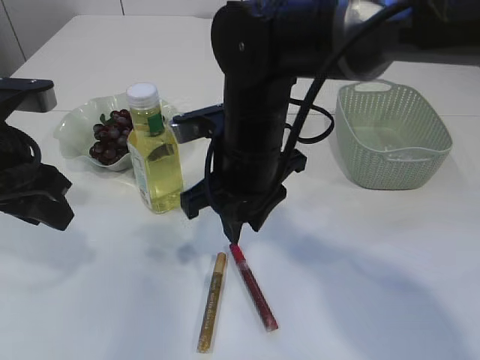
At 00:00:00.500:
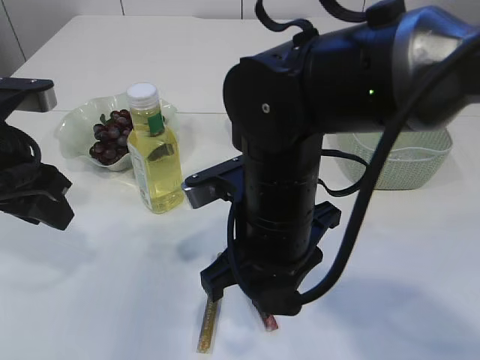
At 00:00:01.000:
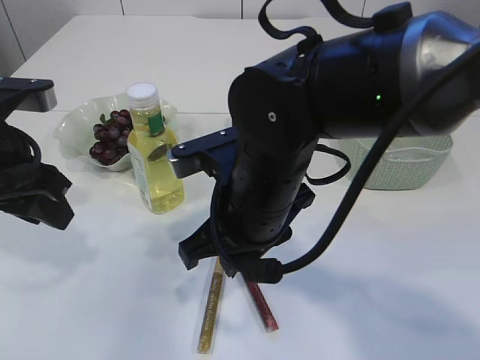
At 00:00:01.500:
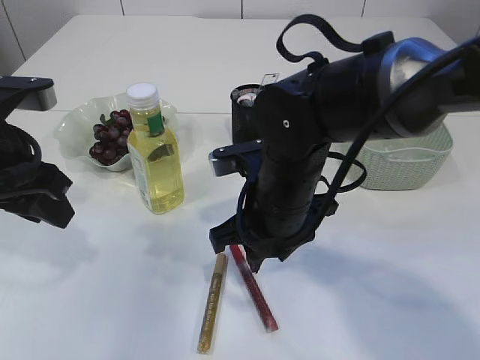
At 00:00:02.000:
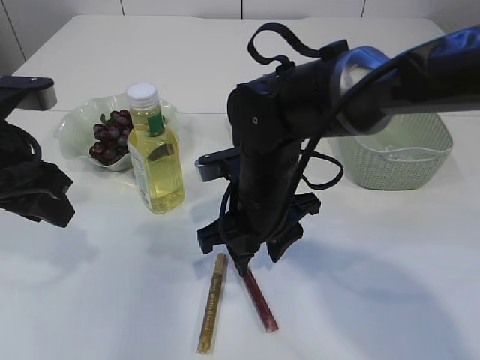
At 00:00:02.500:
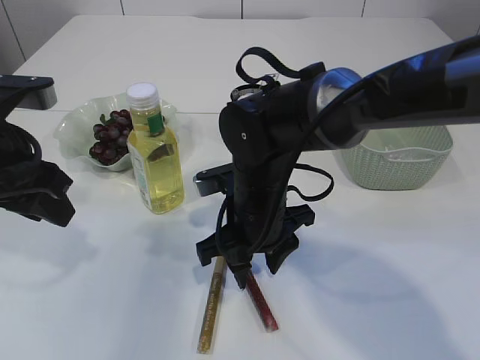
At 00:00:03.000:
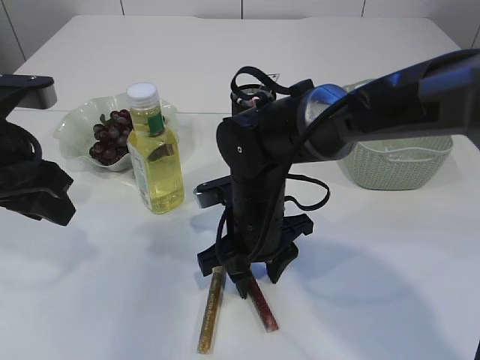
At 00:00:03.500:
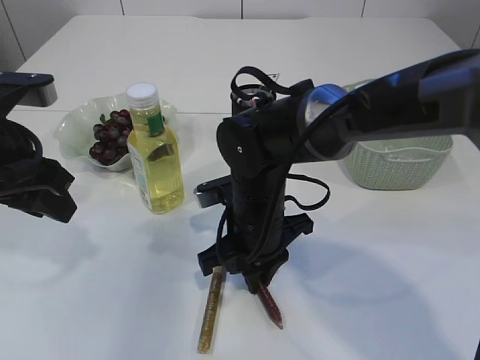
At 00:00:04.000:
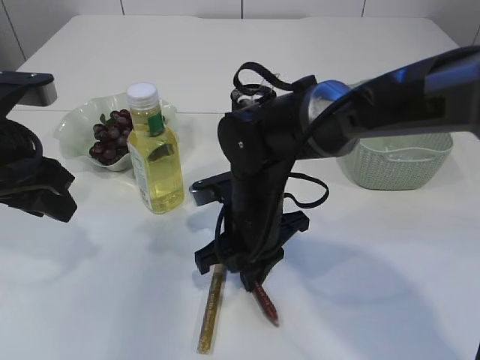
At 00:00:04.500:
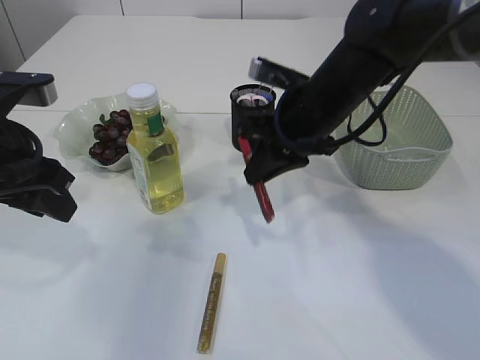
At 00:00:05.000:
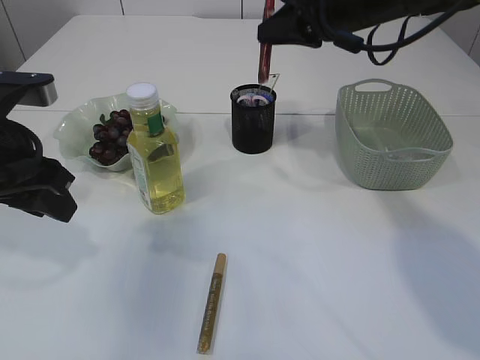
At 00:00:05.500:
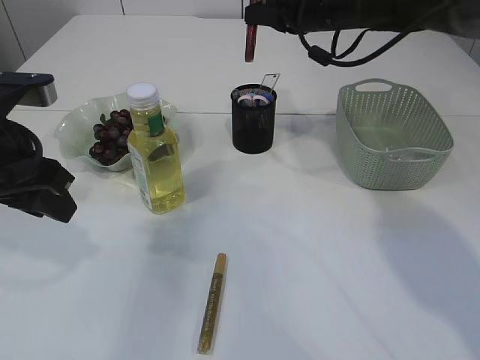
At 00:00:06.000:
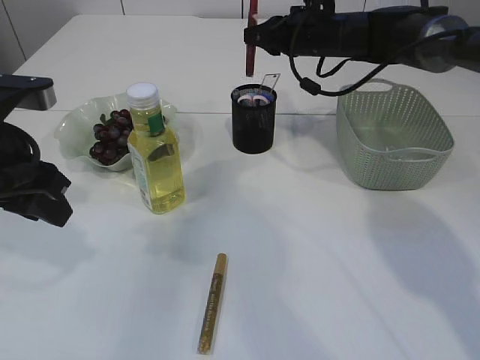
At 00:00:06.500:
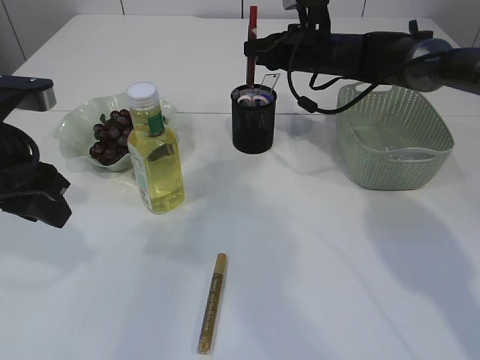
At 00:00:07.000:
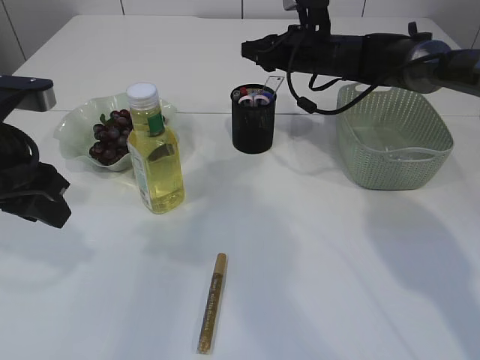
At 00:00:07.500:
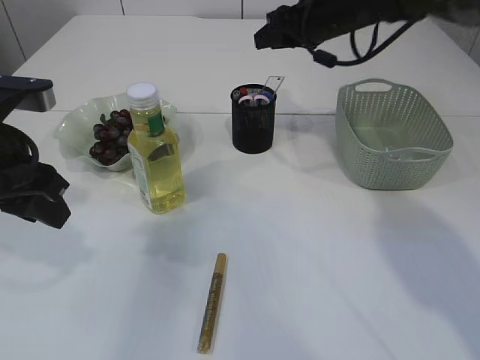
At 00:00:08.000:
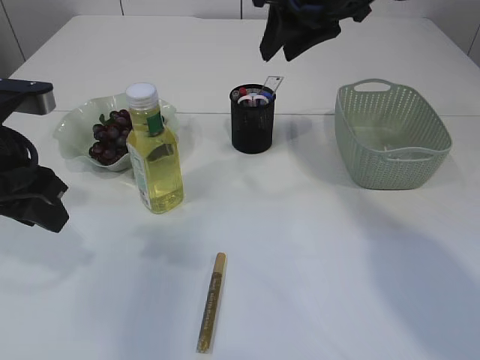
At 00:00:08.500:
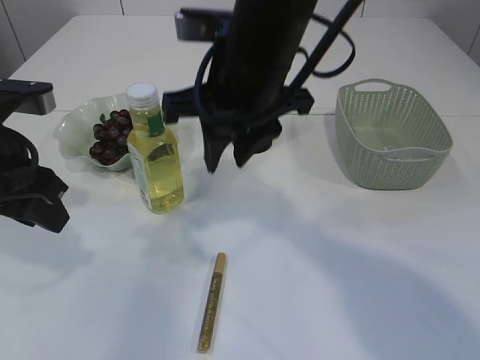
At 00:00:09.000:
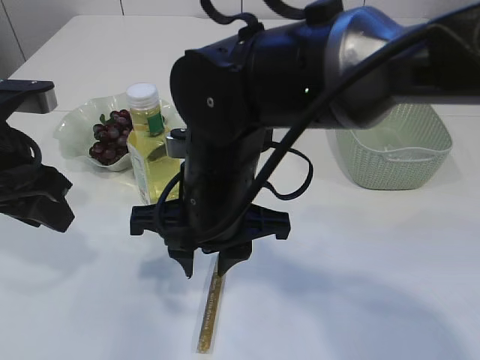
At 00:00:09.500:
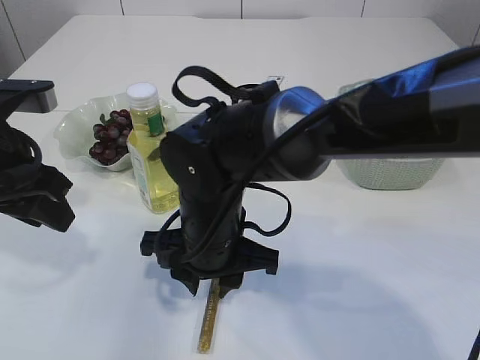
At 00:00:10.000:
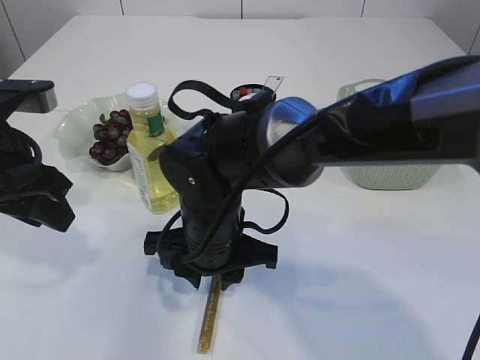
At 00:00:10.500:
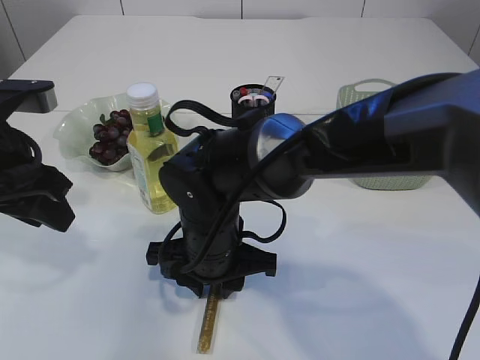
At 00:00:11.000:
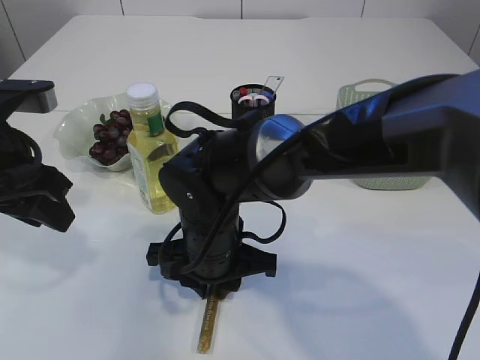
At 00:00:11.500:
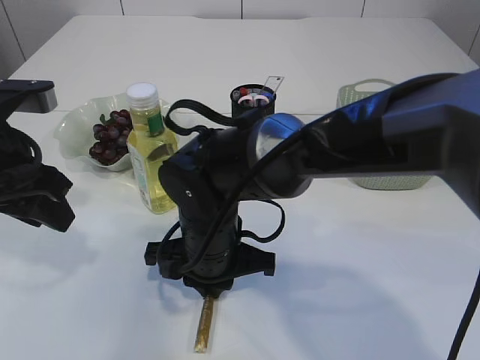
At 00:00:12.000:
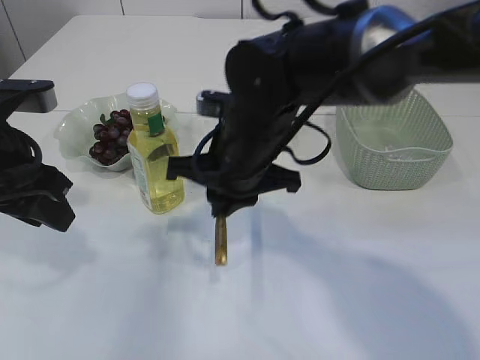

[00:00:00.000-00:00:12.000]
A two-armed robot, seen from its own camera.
Step, 00:00:00.000 to 00:00:04.000: pick up the red glue.
Step, 00:00:04.500 to 00:00:07.500: place the red glue into the pen holder.
Step, 00:00:08.000 to 00:00:11.500: pick up the yellow glue.
00:00:00.000 to 00:00:02.000: The right gripper heads downward, covering about 5 cm.
00:00:02.000 to 00:00:04.000: The right gripper closes its fingers.
00:00:04.000 to 00:00:06.000: The right gripper shifts some 25 cm forward, to the right and upward.
00:00:06.000 to 00:00:08.000: The right gripper shifts some 15 cm backward and upward, and opens.
00:00:08.000 to 00:00:10.000: The right gripper heads downward, to the left and backward, covering roughly 30 cm.
00:00:10.000 to 00:00:12.000: The right gripper moves upward, some 5 cm, and closes up.

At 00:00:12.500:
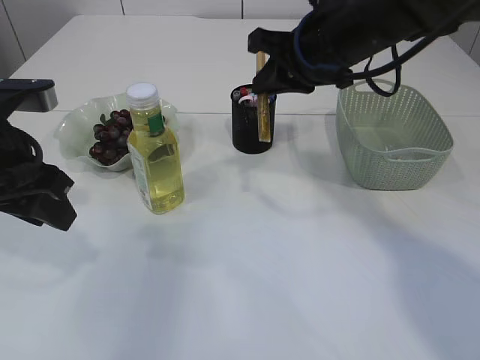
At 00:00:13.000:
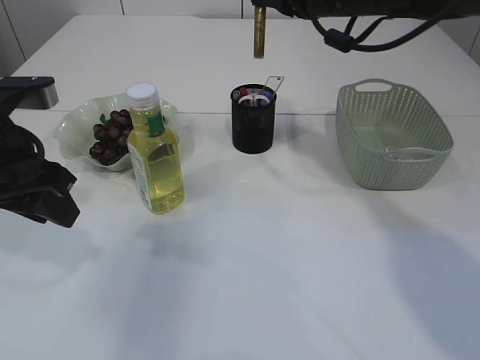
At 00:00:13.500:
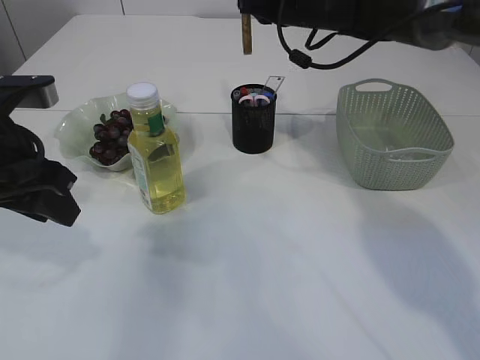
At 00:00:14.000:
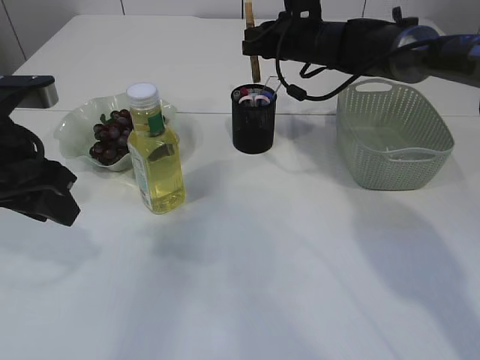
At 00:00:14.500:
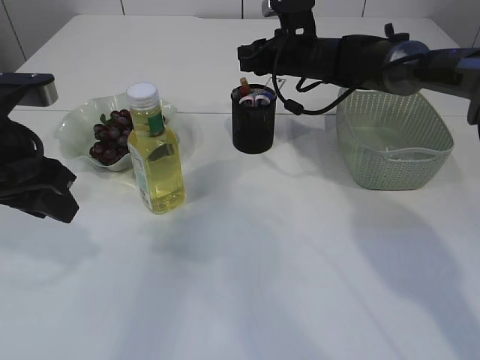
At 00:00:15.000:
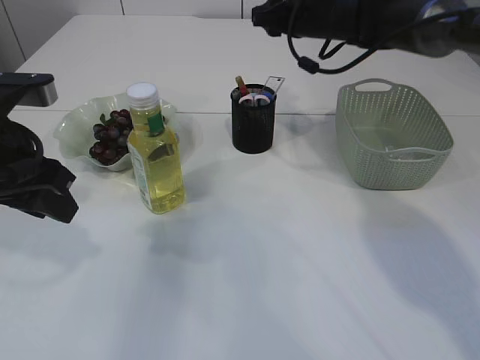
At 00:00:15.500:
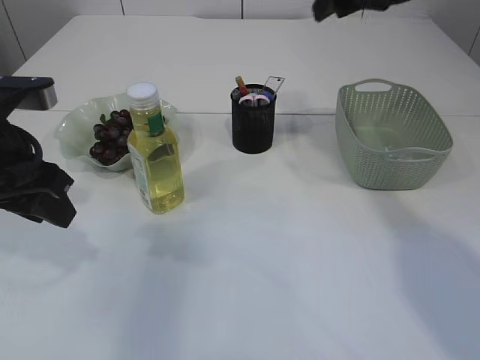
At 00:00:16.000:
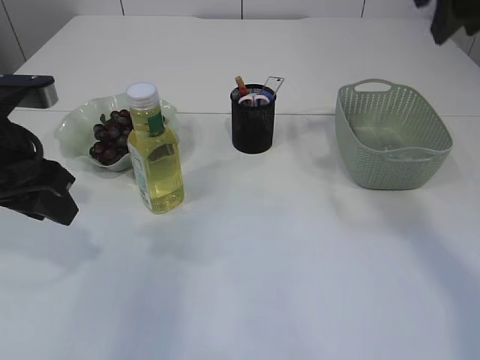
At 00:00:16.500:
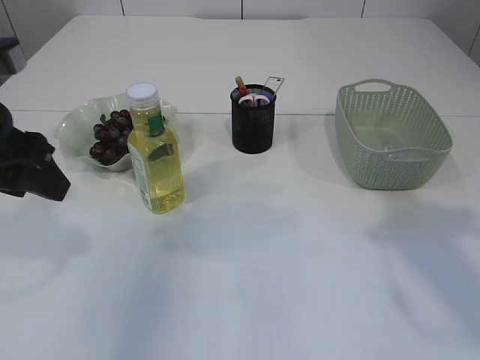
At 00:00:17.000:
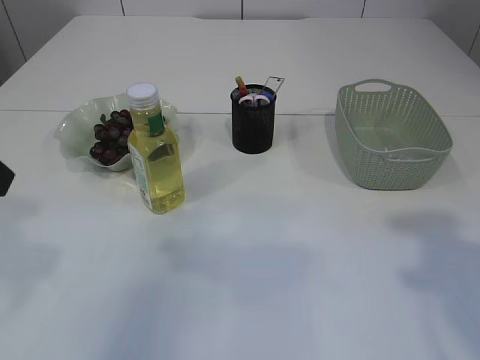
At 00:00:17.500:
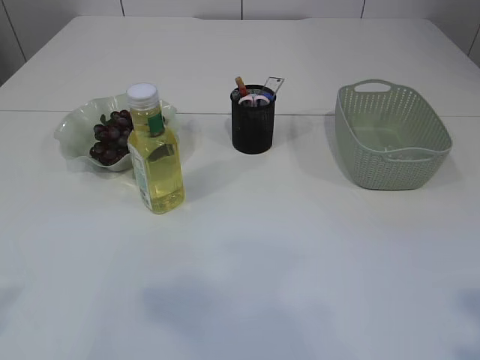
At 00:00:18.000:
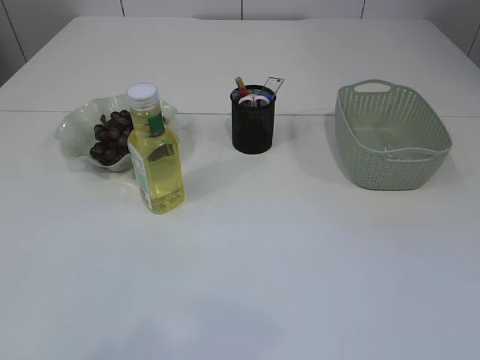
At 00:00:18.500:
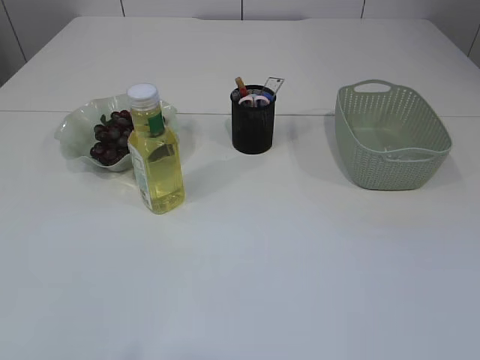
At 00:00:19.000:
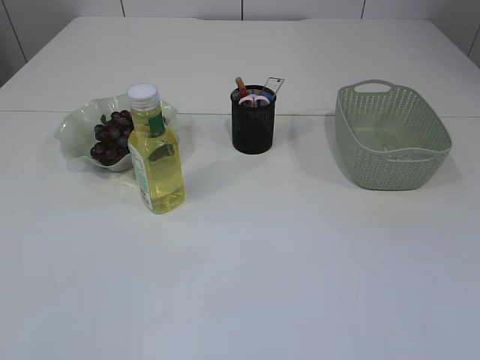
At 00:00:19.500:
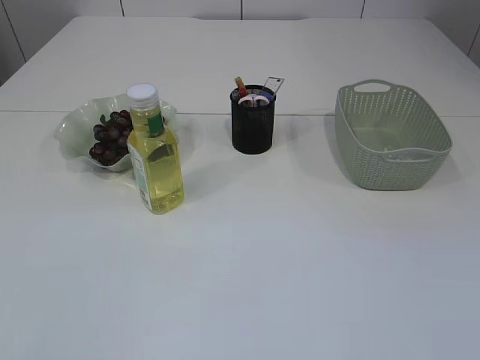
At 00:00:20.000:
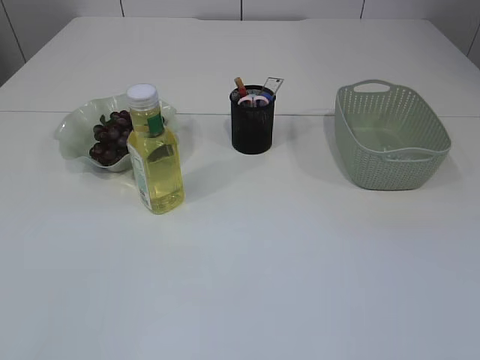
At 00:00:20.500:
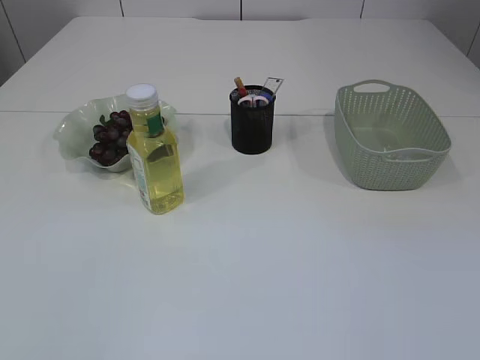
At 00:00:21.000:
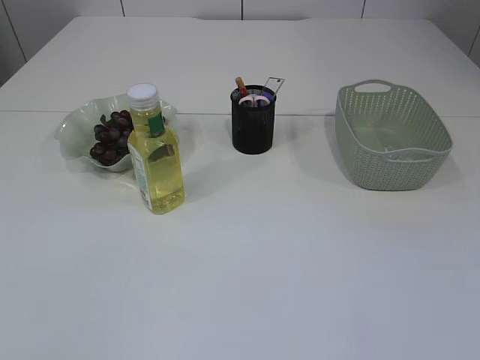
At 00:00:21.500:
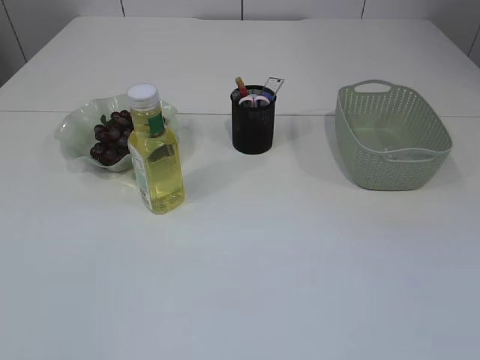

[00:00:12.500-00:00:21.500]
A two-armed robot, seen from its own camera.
Step, 00:00:12.500 to 00:00:14.500: place the yellow glue into the pen holder.
00:00:12.500 to 00:00:14.500: The right gripper moves forward and downward, about 20 cm, and opens.
00:00:14.500 to 00:00:17.000: The right gripper goes approximately 40 cm backward and upward. The left gripper shifts about 10 cm upward and backward.
00:00:17.000 to 00:00:19.500: The right gripper heads backward and downward, covering some 20 cm. Meanwhile the left gripper is displaced backward by about 20 cm.
